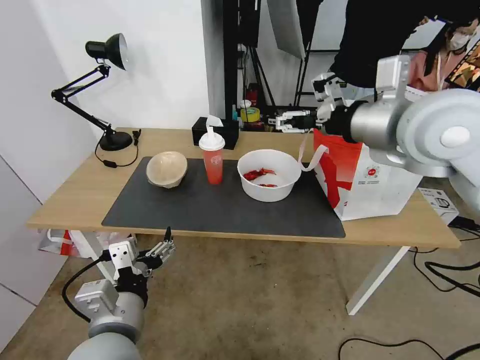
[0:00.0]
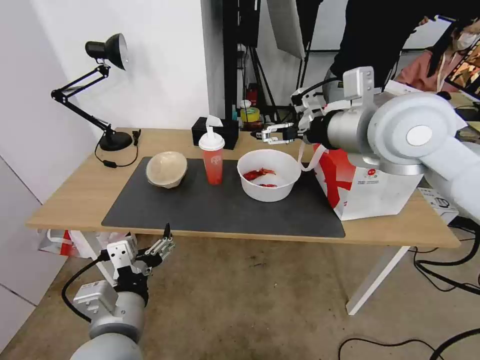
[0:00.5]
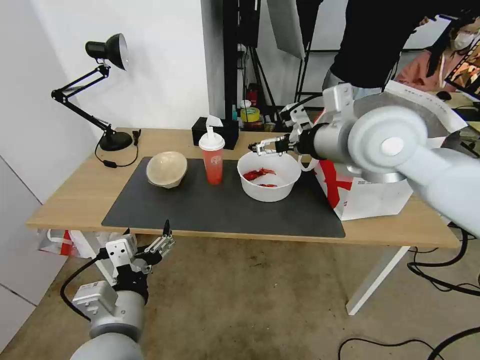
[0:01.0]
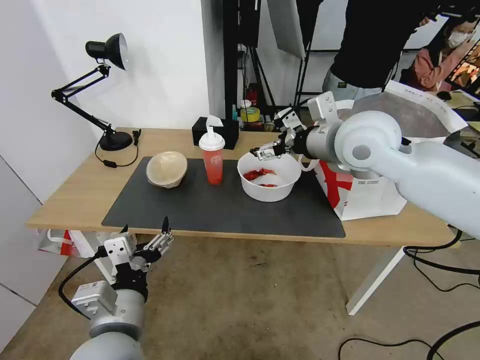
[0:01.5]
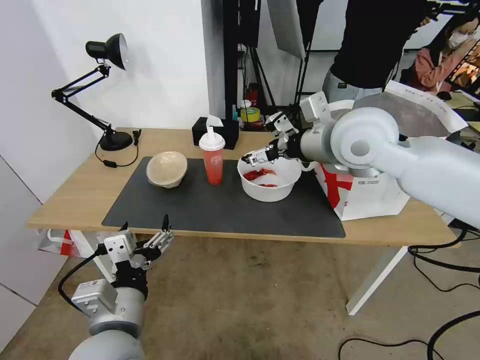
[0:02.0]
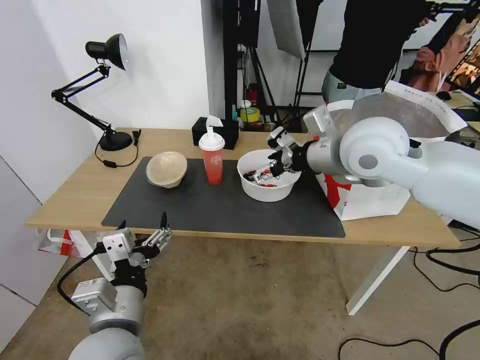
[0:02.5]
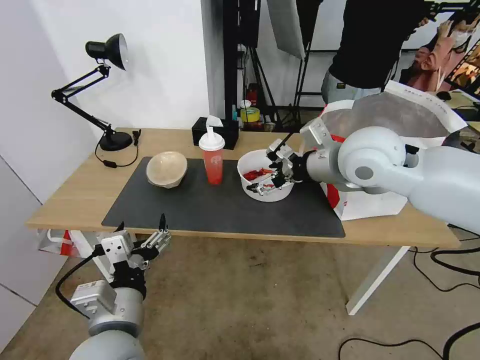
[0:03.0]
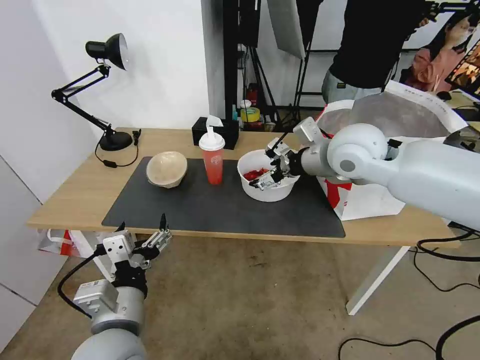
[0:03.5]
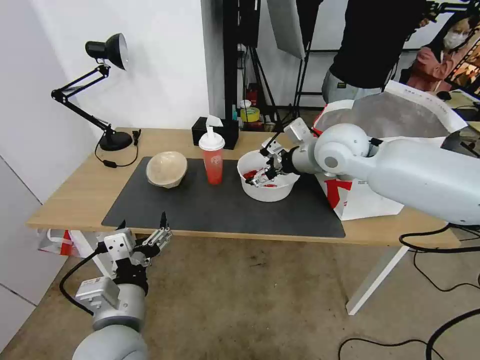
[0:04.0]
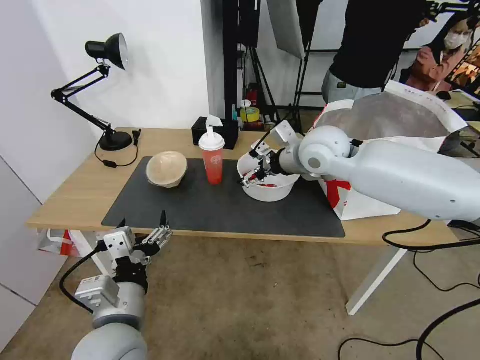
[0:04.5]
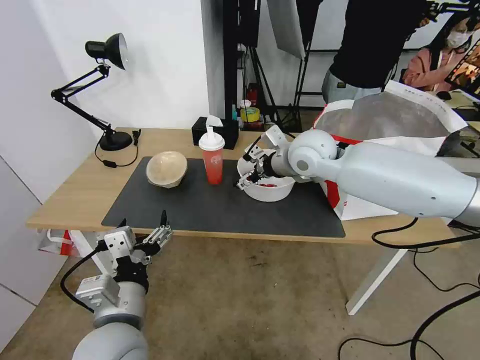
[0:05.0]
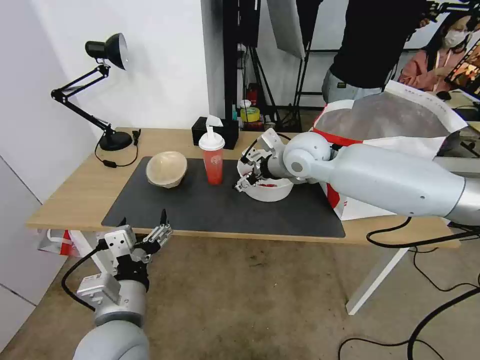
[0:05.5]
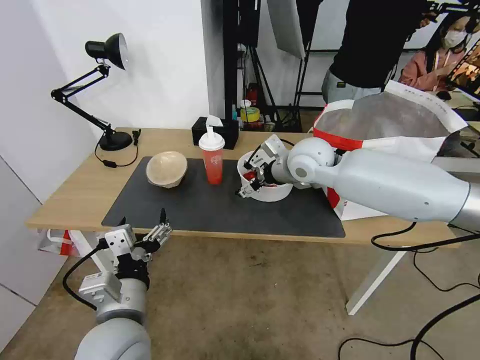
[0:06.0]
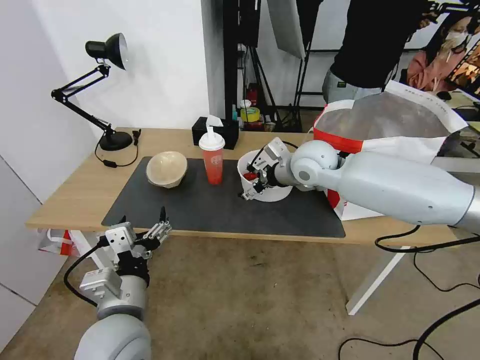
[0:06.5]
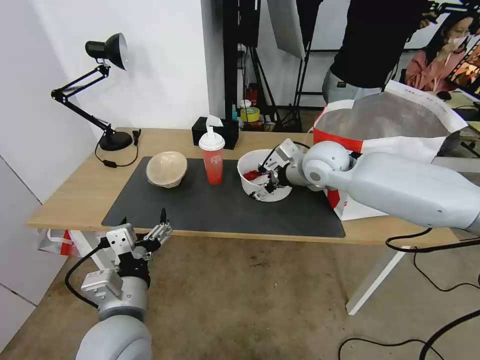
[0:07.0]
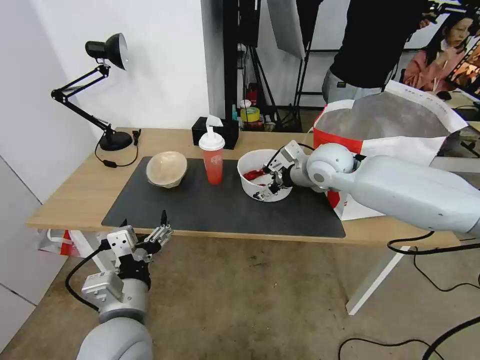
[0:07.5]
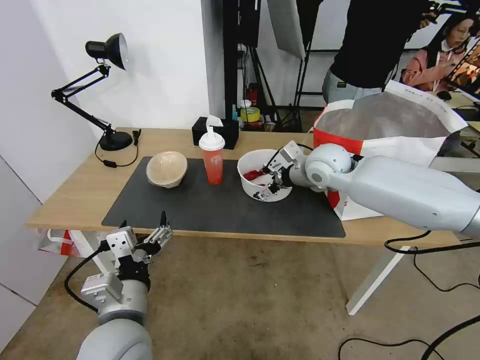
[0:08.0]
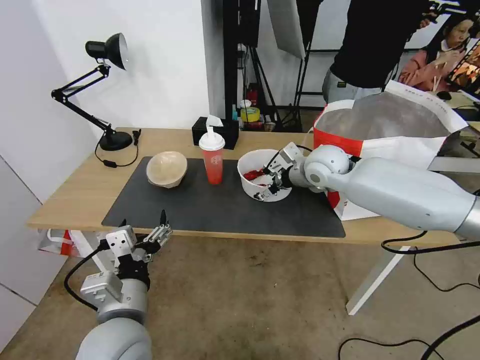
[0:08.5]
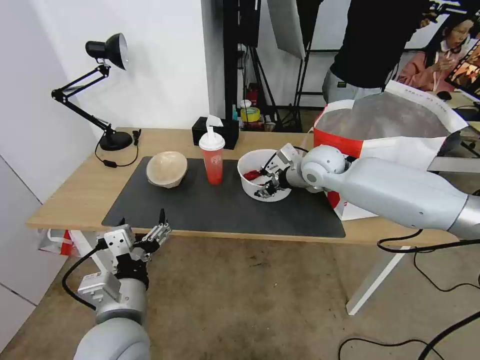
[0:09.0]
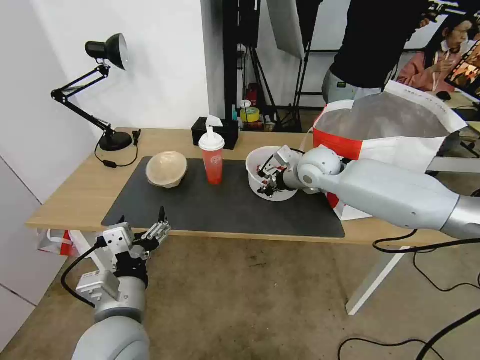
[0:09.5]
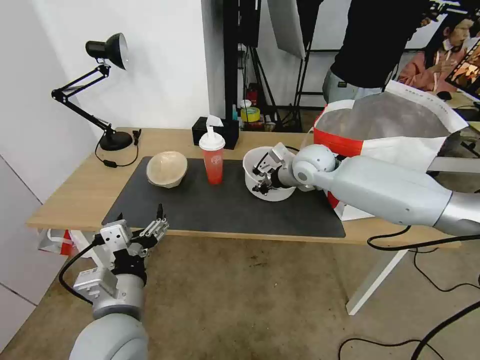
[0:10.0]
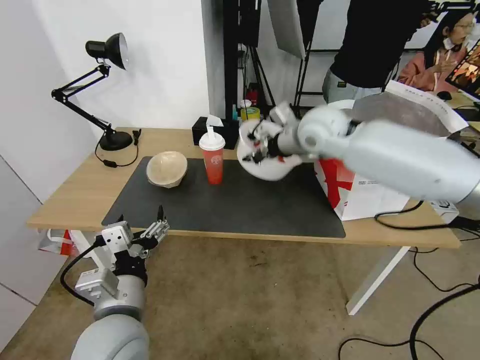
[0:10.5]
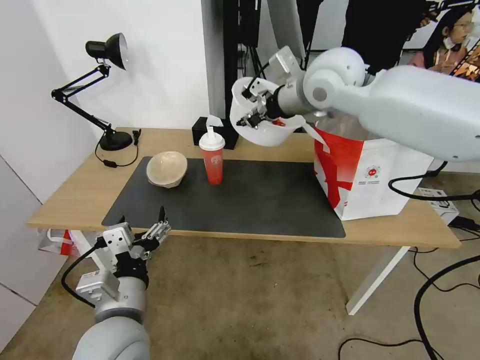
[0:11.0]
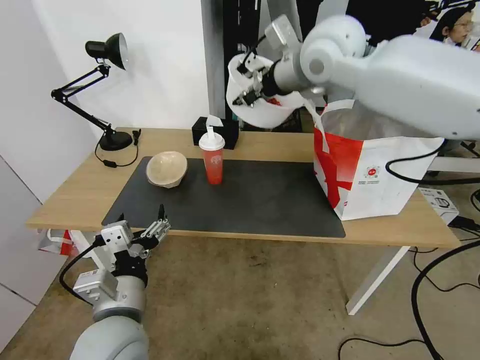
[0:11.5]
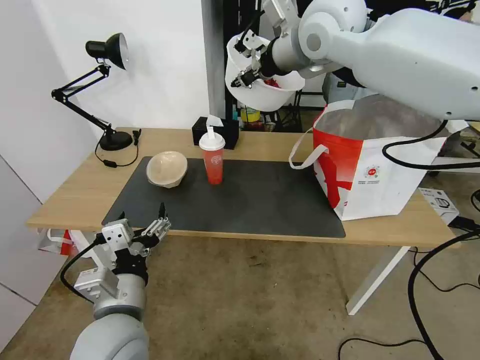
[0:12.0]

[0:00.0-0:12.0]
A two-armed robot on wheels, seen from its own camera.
Task of the whole recording: Pick up the trash from the table and place it into the takeout bag.
0.0 to 2.0 s: The right gripper travels to the left and forward by some 10 cm.
2.0 to 4.0 s: The right gripper is displaced downward and forward by roughly 10 cm.
4.0 to 6.0 s: The right gripper moves approximately 5 cm.
6.0 to 8.0 s: The right gripper moves some 5 cm.
8.0 to 10.0 s: The right gripper closes.
10.0 to 12.0 s: The right gripper shifts approximately 25 cm upward.

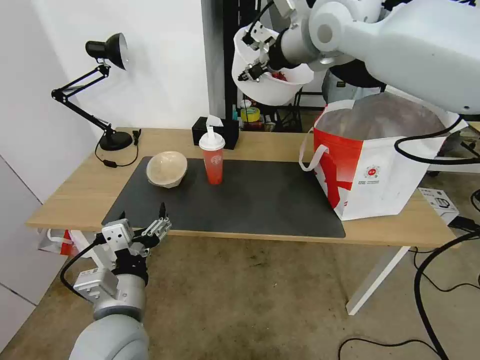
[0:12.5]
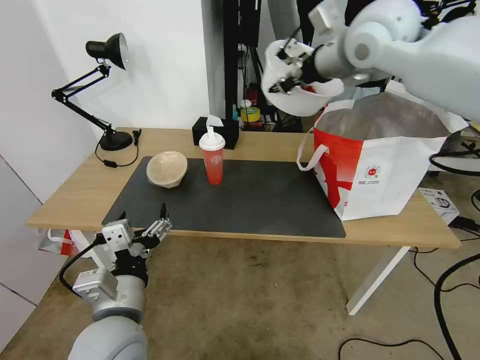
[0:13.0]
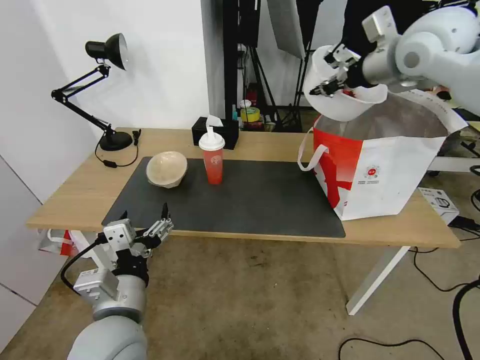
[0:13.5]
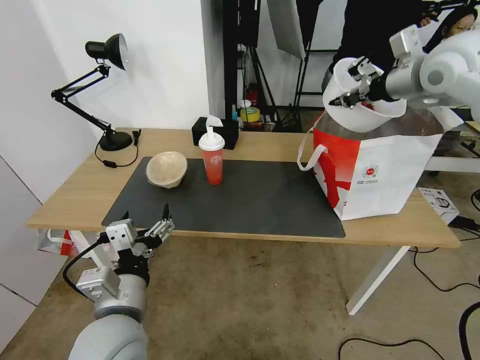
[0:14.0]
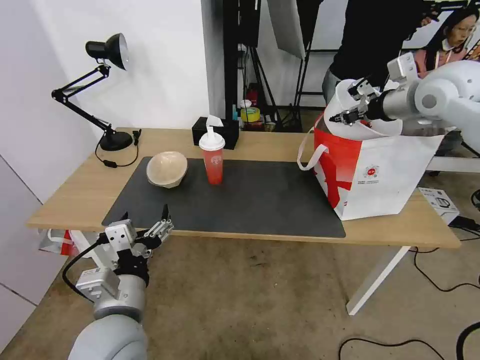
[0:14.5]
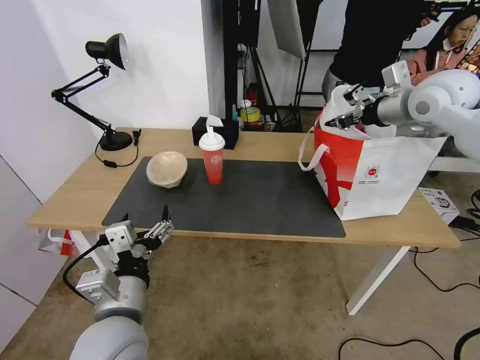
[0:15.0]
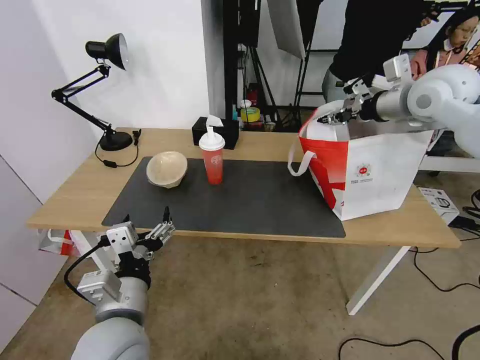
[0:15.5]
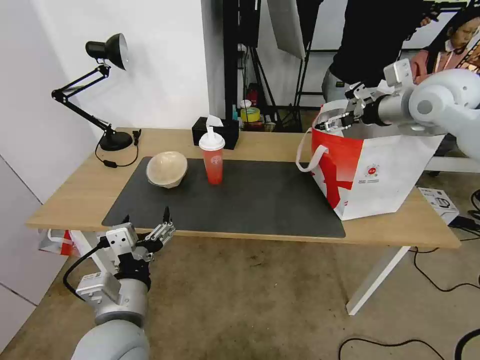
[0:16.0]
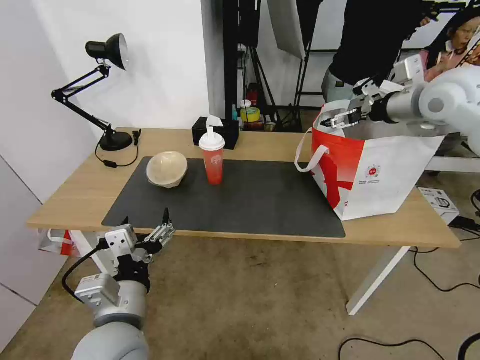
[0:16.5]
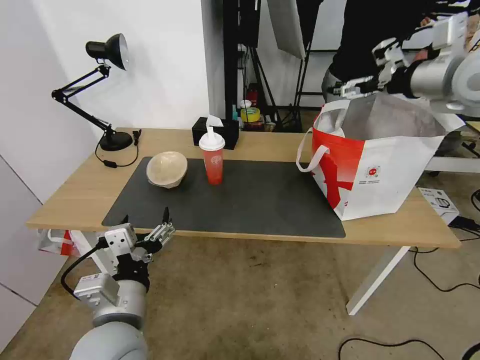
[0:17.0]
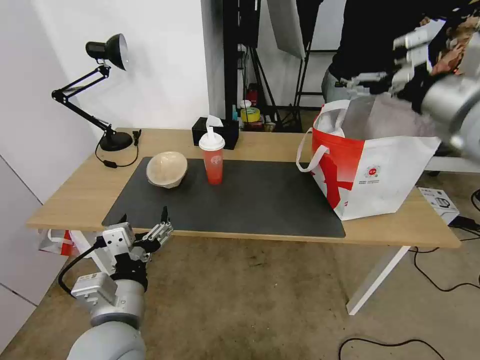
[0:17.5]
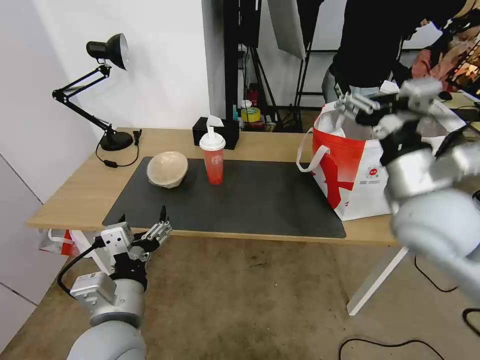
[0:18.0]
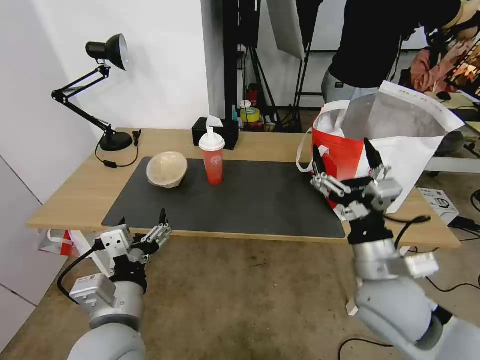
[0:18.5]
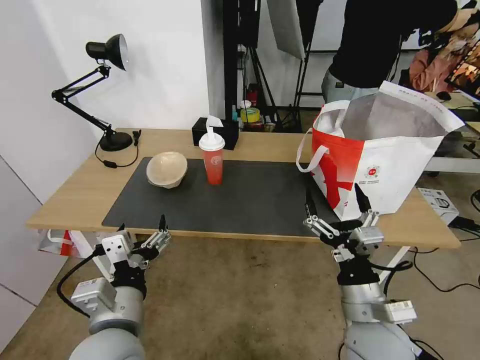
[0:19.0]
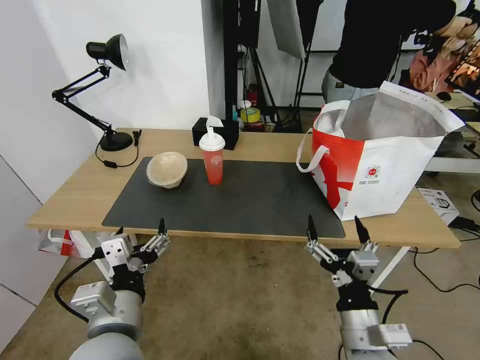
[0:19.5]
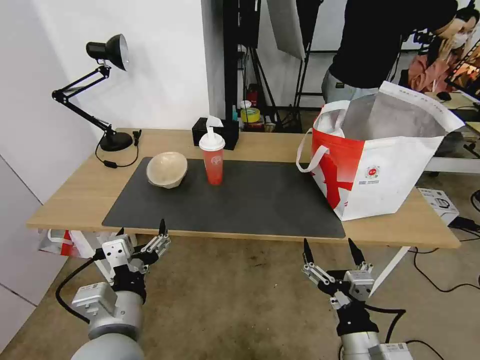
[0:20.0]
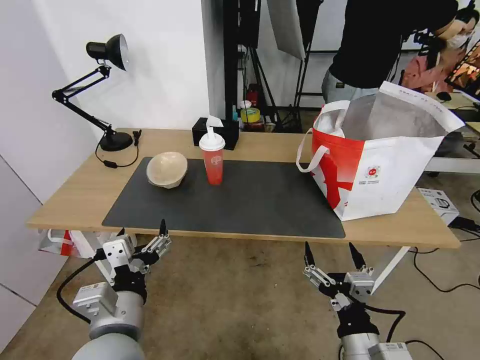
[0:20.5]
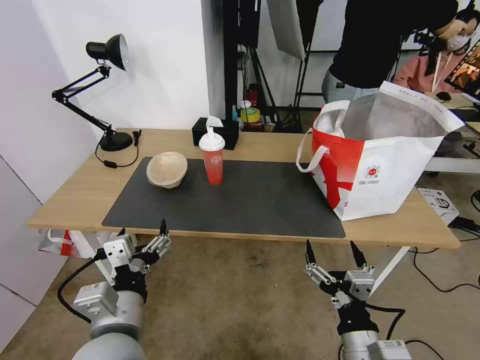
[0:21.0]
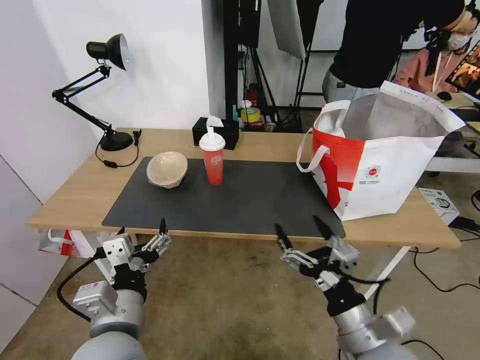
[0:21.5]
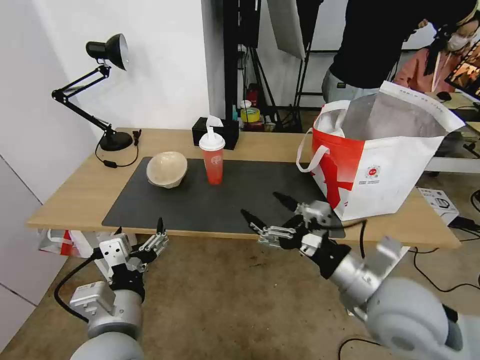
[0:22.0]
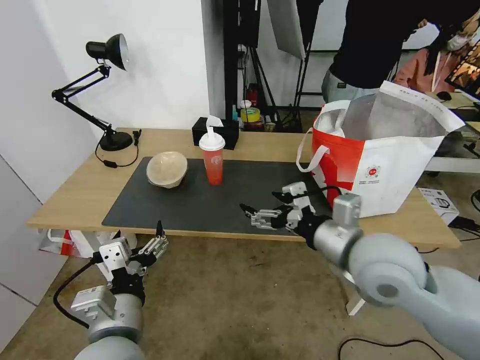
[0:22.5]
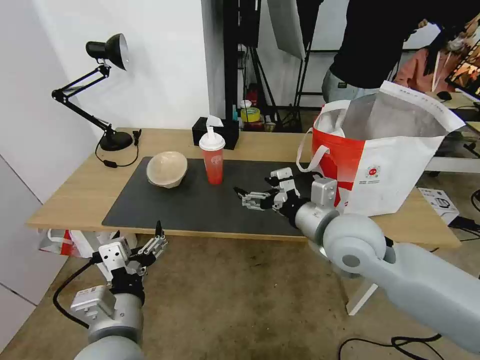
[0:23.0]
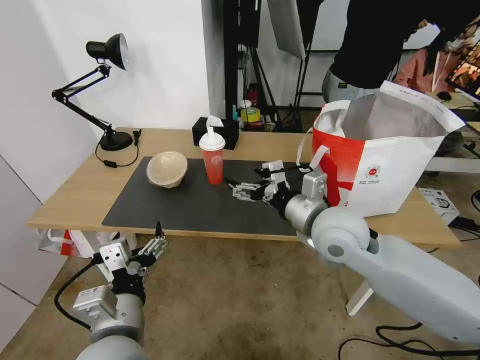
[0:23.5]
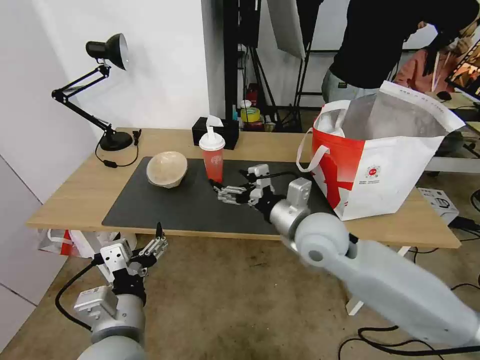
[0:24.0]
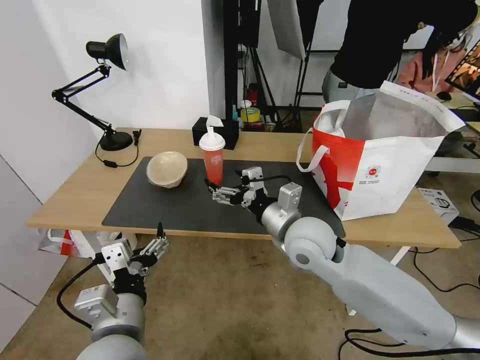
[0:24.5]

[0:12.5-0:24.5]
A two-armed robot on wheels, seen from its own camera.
Task of the whole recording: Pick up the trash from the table and place it into the takeout bag.
12.5 to 14.5 s: The right gripper moves to the right and downward, about 25 cm.
14.5 to 16.5 s: The right gripper opens.
16.5 to 18.5 s: The right gripper moves backward, downward and to the left, some 40 cm.
18.5 to 20.5 s: The right gripper travels backward and downward by some 15 cm.
20.5 to 22.5 s: The right gripper heads forward and upward, covering some 25 cm.
22.5 to 24.5 s: The right gripper goes about 15 cm forward, to the left and downward.

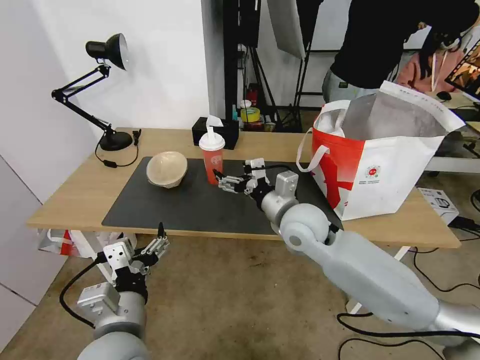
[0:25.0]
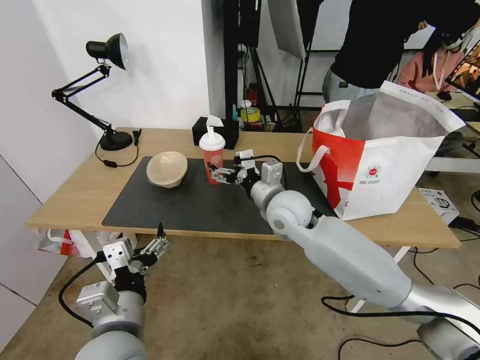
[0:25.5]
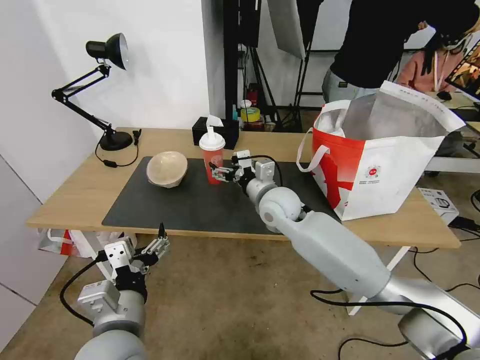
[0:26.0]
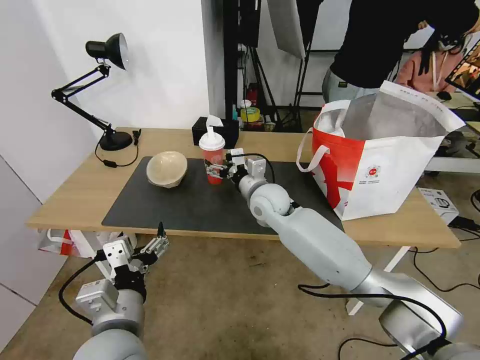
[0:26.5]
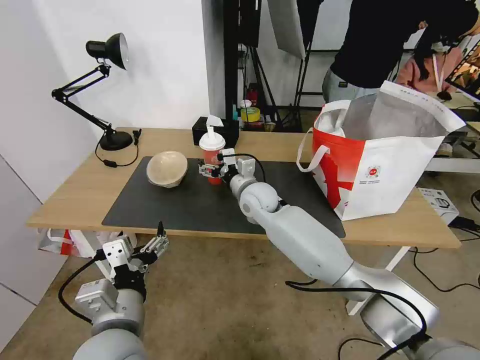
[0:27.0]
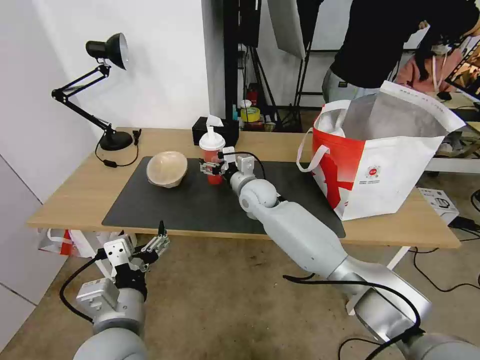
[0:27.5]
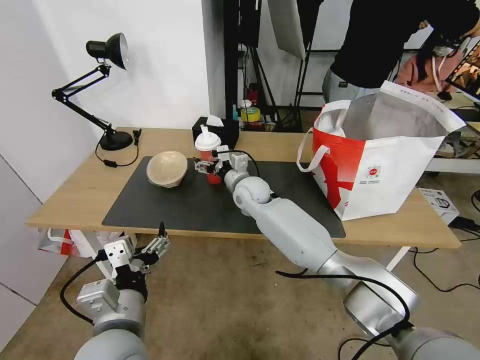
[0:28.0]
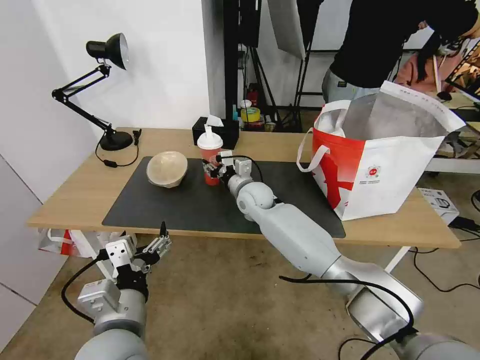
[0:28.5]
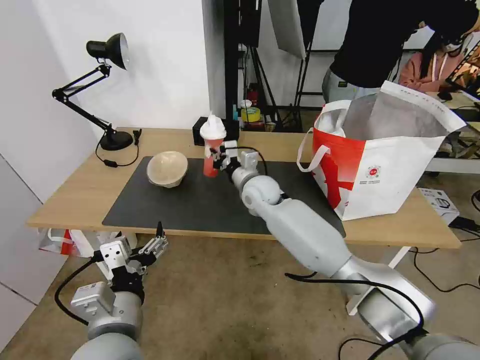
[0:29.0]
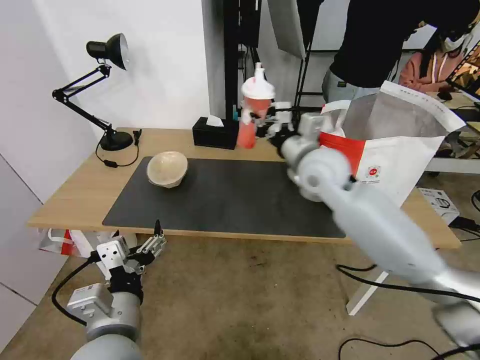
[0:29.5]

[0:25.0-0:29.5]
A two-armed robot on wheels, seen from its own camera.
Task of the whole recording: Pick up the trash from the table and place it into the takeout bag.
25.0 to 27.0 s: The right gripper heads forward and to the left, covering approximately 15 cm.
27.0 to 29.5 s: The right gripper is displaced upward and to the right by some 15 cm, and closes up.
